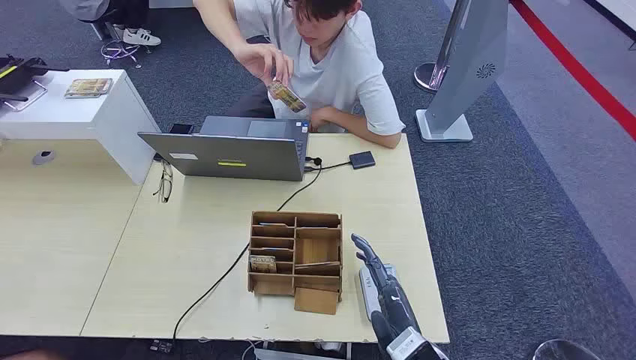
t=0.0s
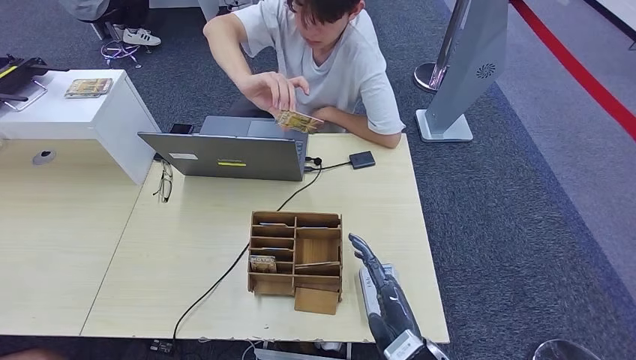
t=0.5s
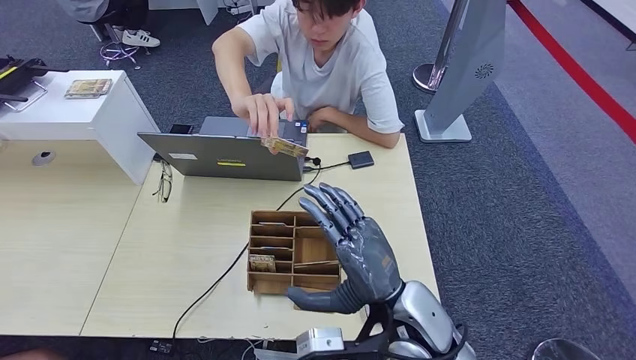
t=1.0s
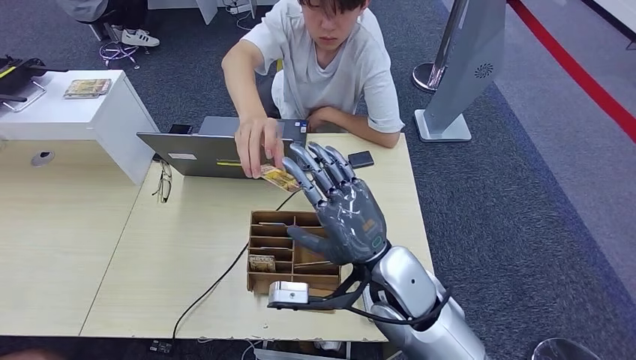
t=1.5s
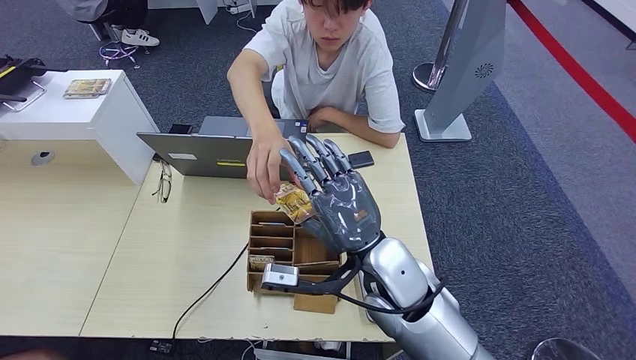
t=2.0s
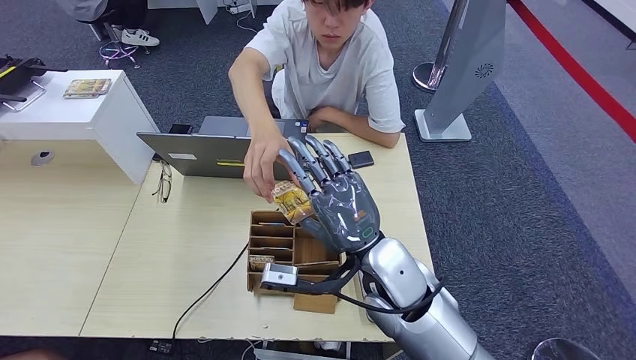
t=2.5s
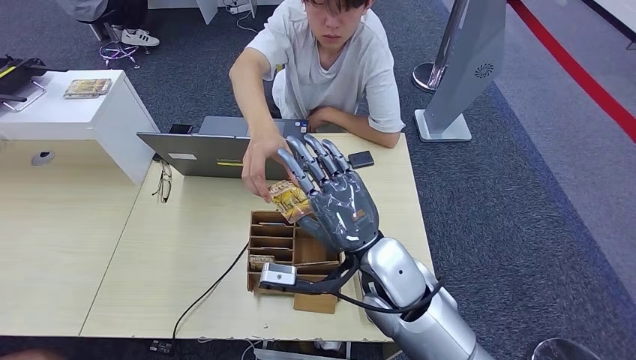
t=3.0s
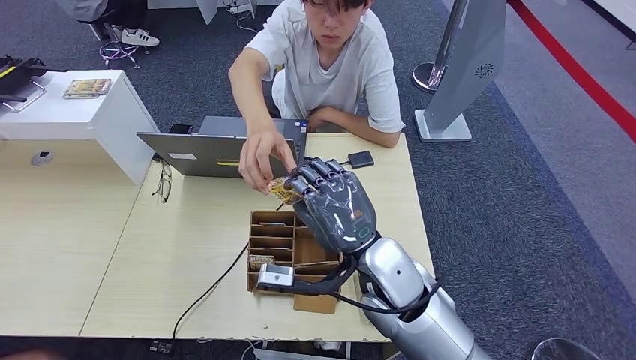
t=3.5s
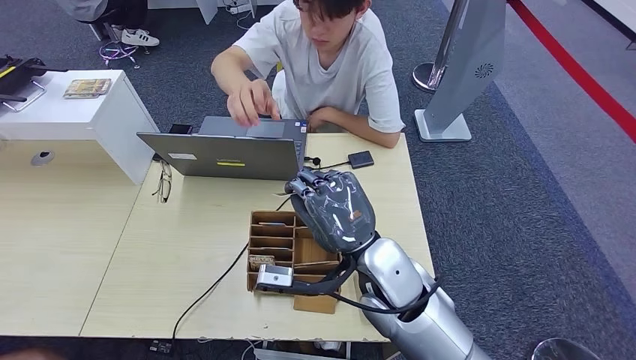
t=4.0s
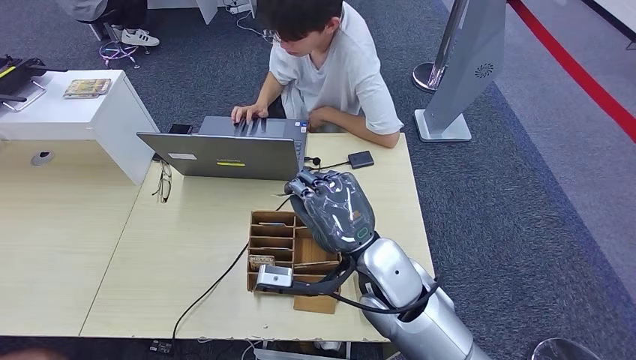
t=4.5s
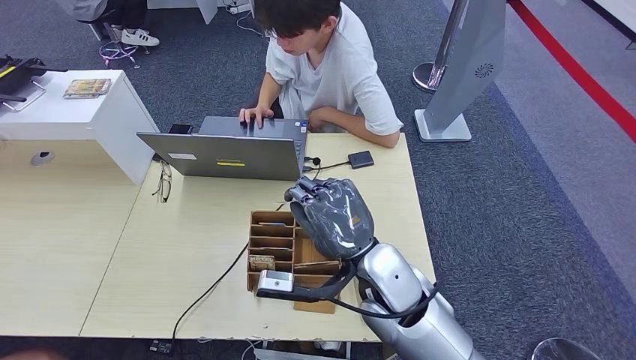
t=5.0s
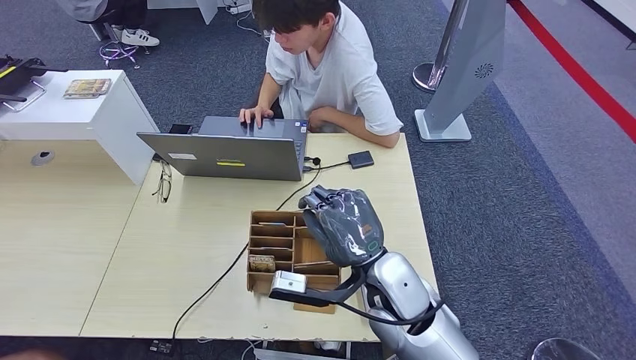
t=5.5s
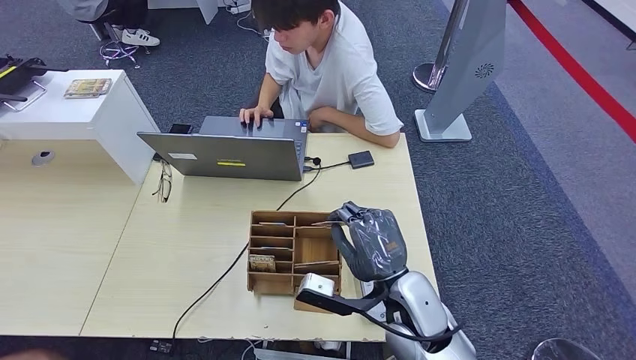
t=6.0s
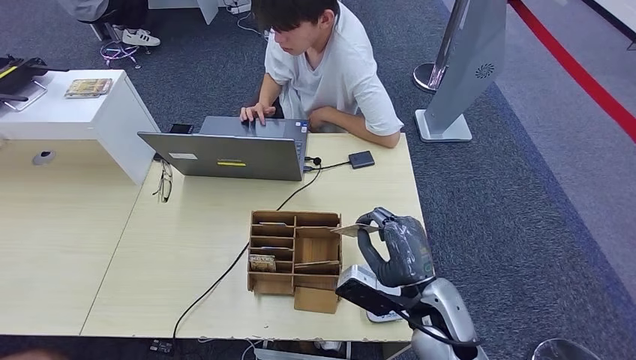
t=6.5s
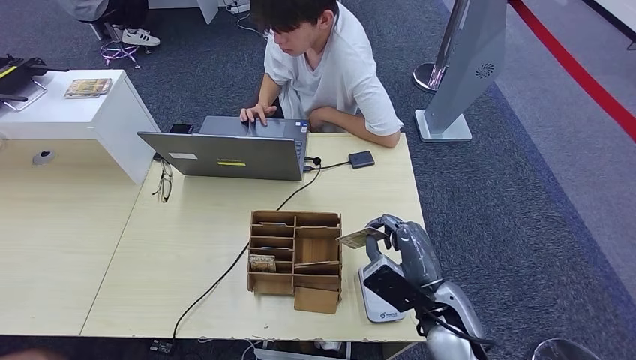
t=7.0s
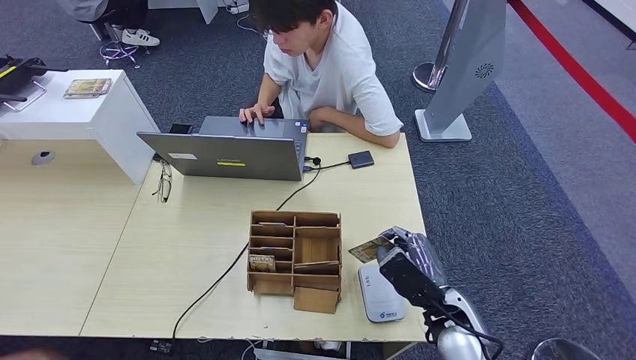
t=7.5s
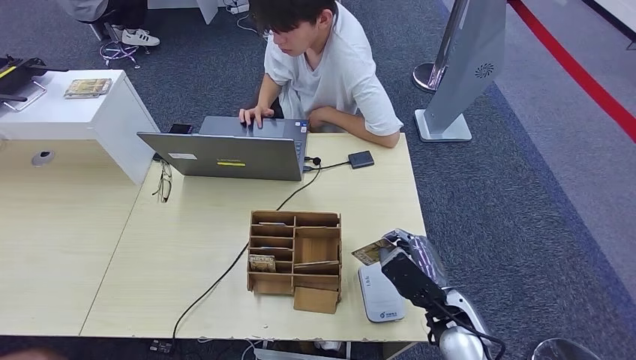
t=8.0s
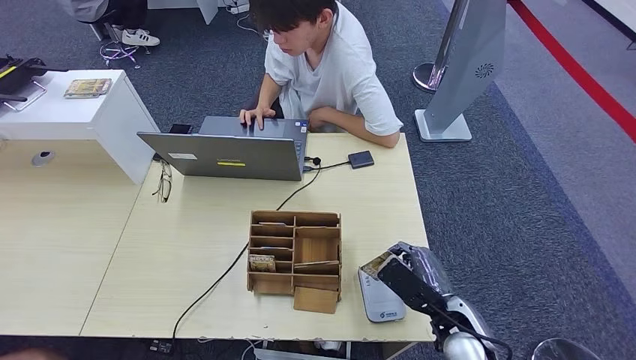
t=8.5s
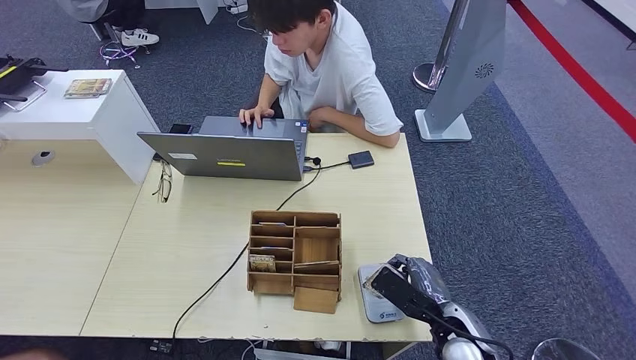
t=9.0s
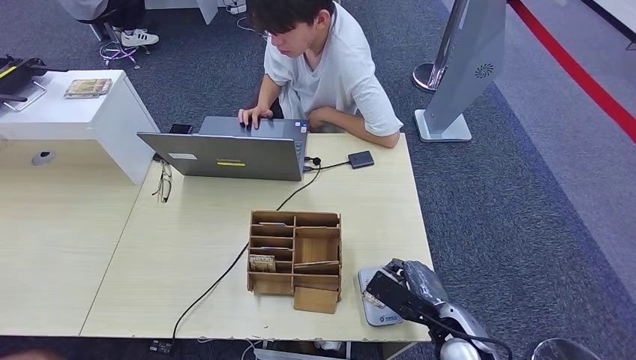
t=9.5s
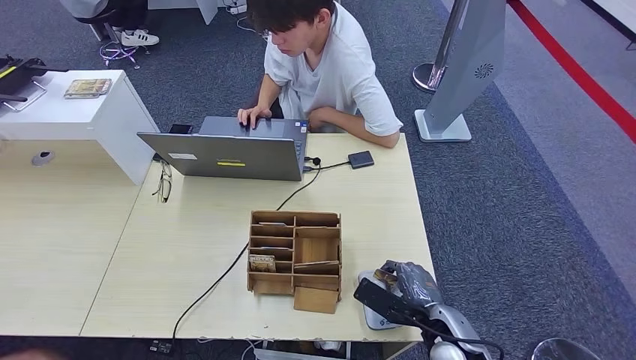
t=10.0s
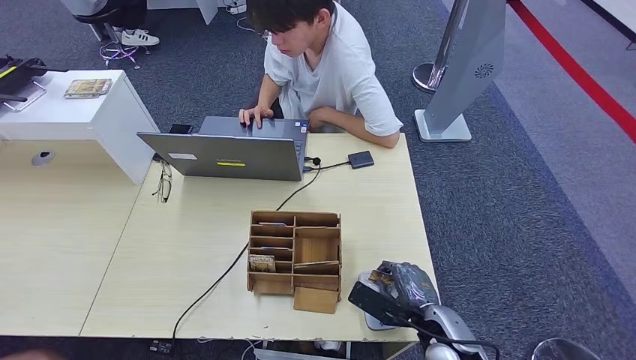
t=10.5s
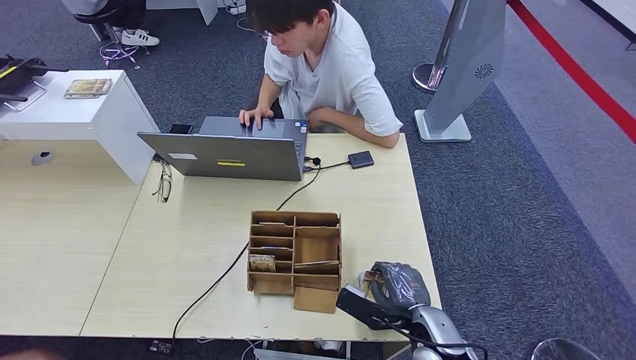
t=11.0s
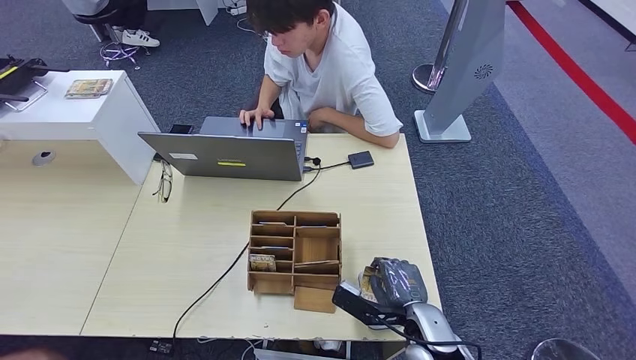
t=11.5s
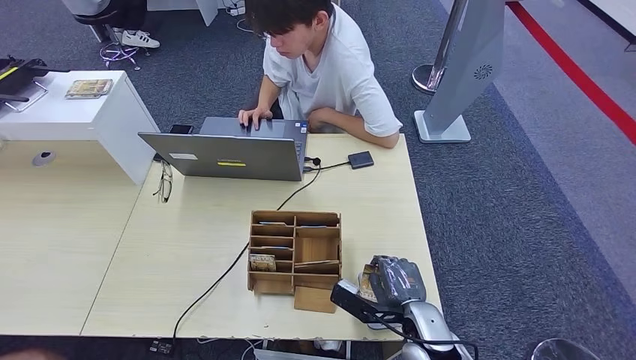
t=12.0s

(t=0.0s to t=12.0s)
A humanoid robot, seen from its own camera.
Step, t=0.0s - t=4.5s: Take the ID card from the person's hand.
t=2.0s - t=4.0s: Both hands stay about where they are.
t=4.0s - t=6.0s: The right hand goes approximately 5 cm downward.
t=6.0s - t=8.0s: The right hand moves to the right and downward, roughly 10 cm.
t=10.0s - t=12.0s: The hands stay close to where they were, moving slightly.

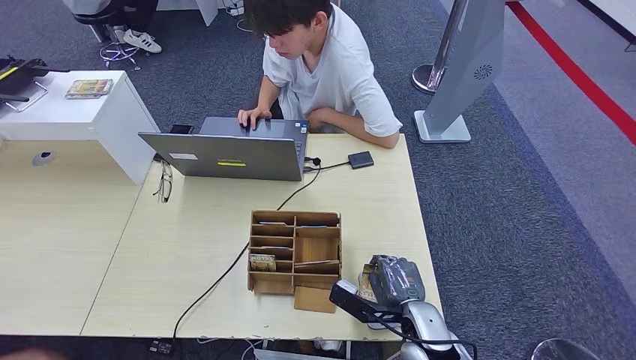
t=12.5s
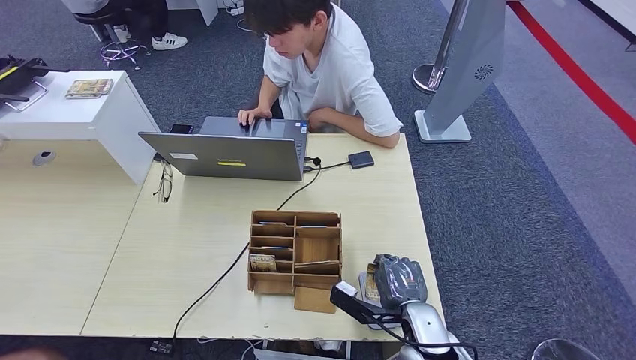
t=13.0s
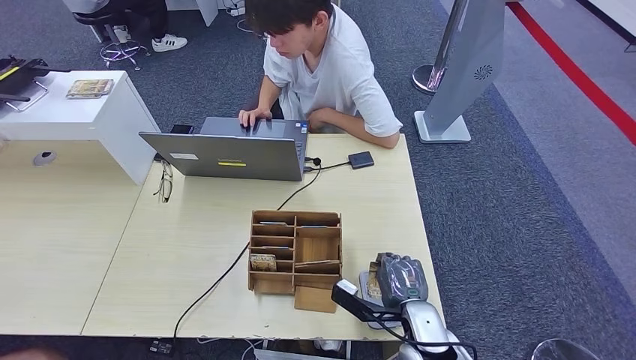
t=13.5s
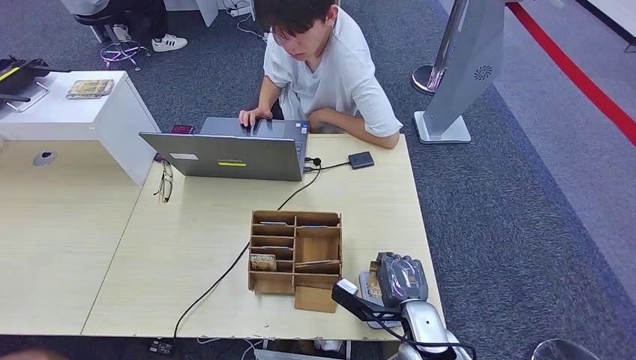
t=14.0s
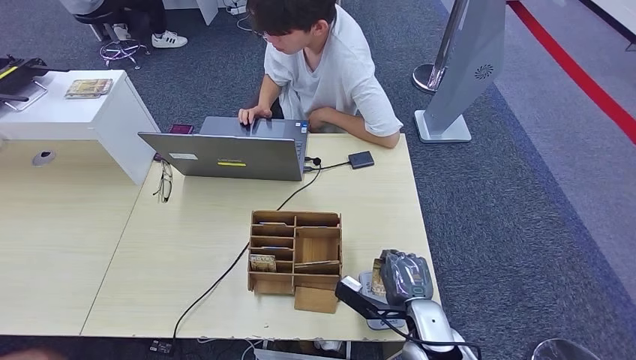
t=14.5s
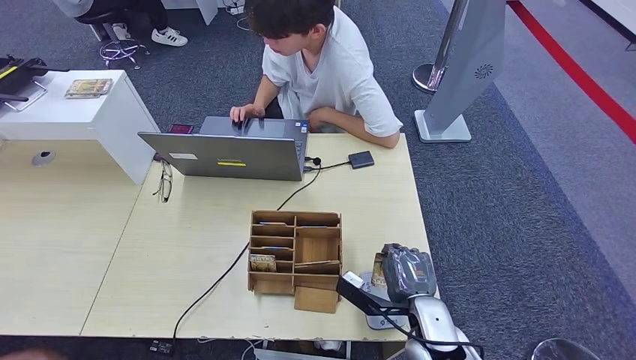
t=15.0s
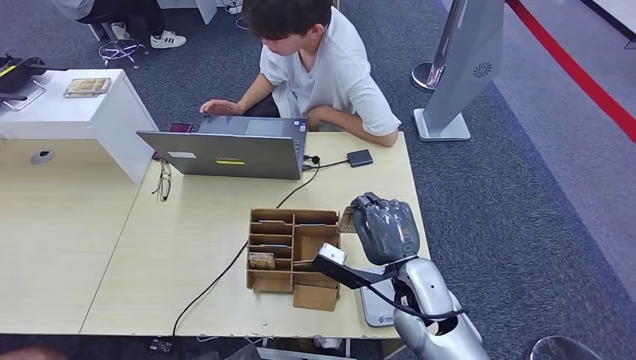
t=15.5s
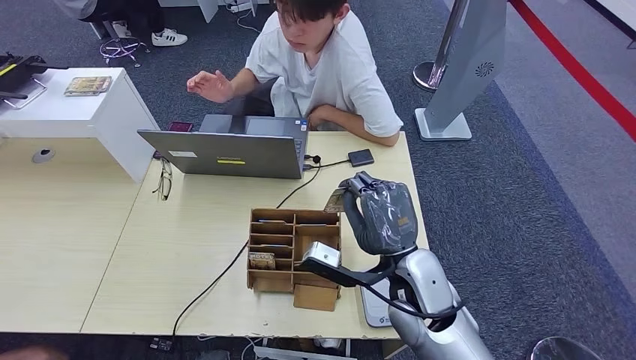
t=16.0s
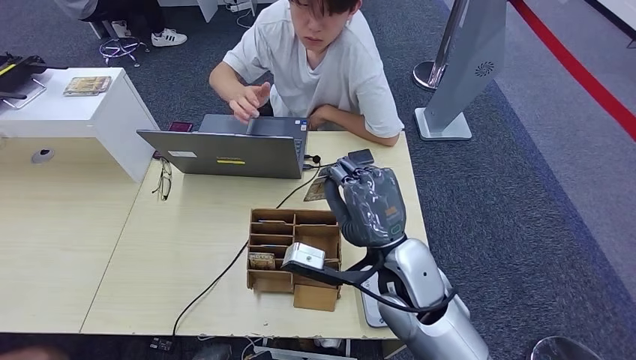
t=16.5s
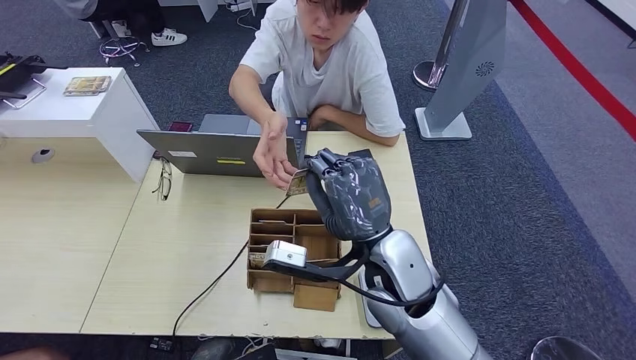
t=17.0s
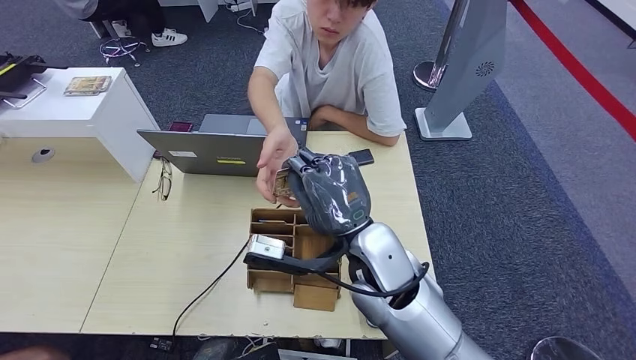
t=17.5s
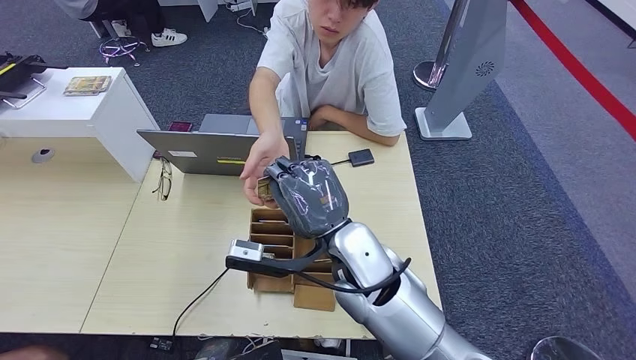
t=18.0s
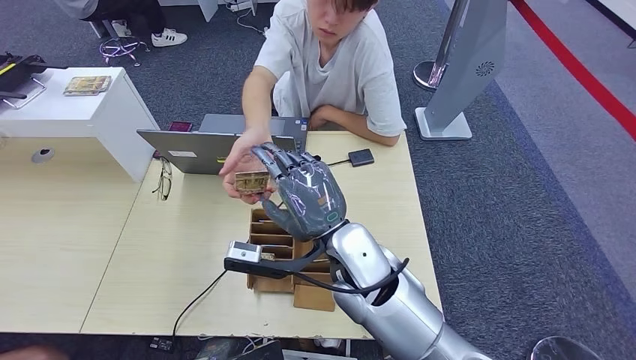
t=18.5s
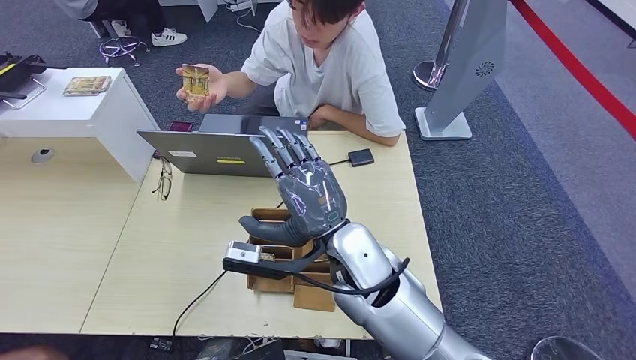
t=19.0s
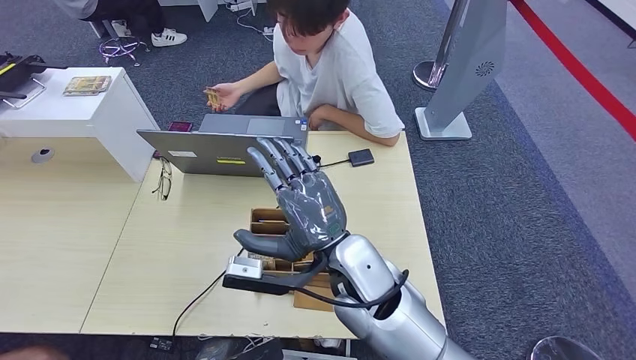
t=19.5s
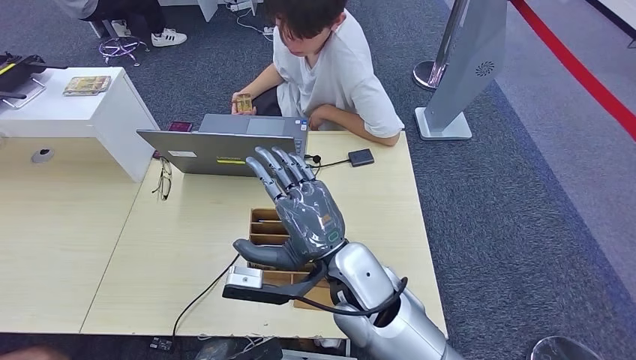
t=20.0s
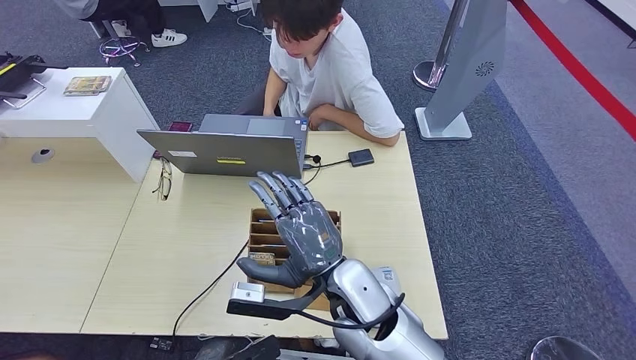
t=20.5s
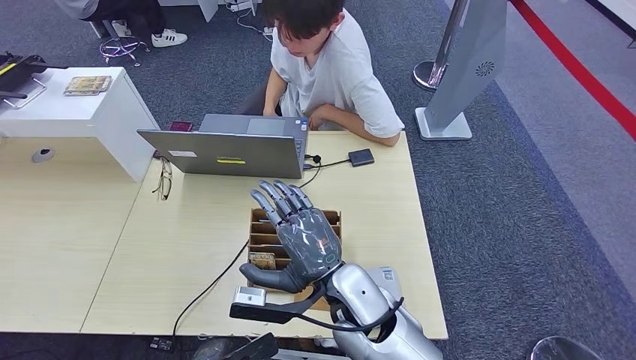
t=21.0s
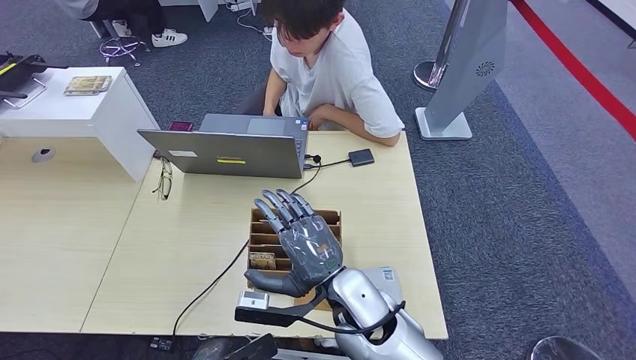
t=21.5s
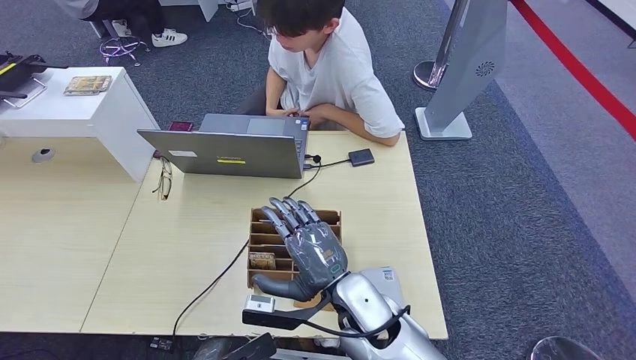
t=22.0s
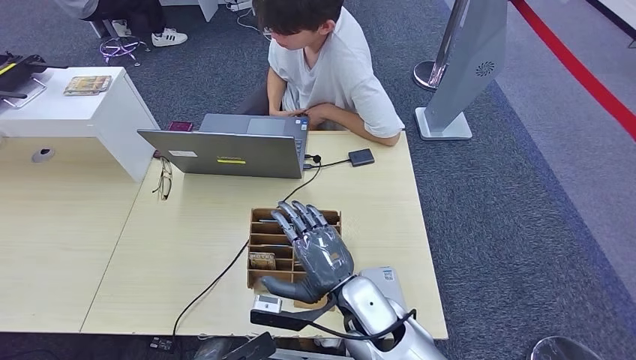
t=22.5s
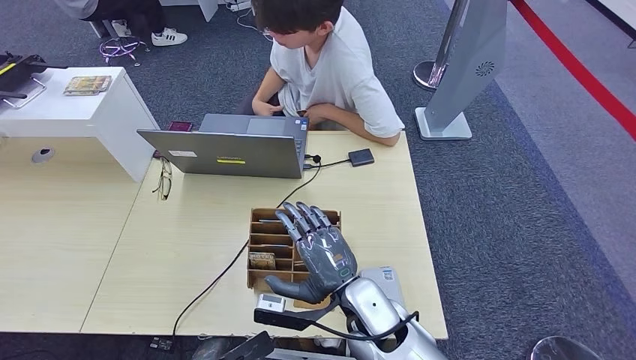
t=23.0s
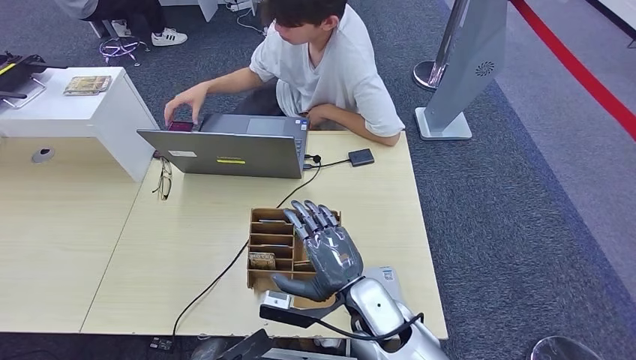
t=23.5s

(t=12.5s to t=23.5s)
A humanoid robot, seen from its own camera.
Step, t=12.5s - t=16.0s: Place the ID card on the card reader.
Step, t=16.5s - t=19.5s: Hand the ID card to the person.
t=12.5s - t=14.5s: The hands make only small movements.
t=14.5s - t=16.0s: The right hand is displaced upward by some 15 cm. The left hand heads forward and upward, covering roughly 10 cm.
t=16.0s - t=18.0s: The right hand goes approximately 10 cm to the left.
t=18.0s - t=20.0s: The hands make only small movements.
t=20.0s - t=21.5s: The right hand moves downward, approximately 5 cm.
t=21.5s - t=23.5s: The hands stay close to where they were, moving slightly.
